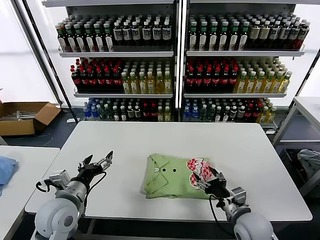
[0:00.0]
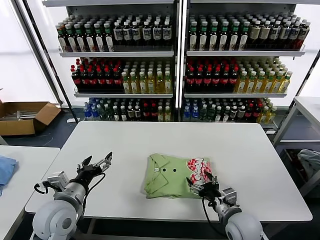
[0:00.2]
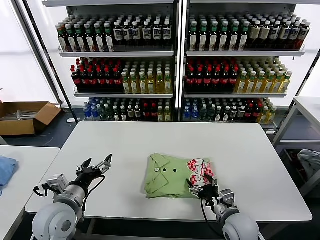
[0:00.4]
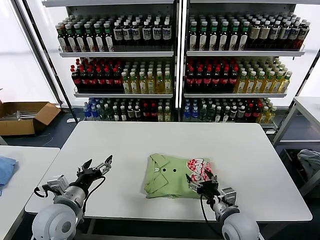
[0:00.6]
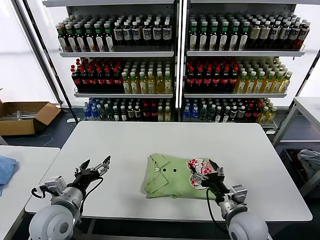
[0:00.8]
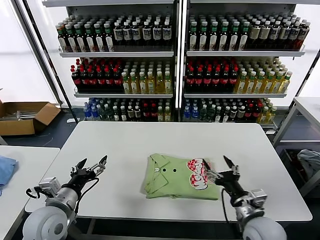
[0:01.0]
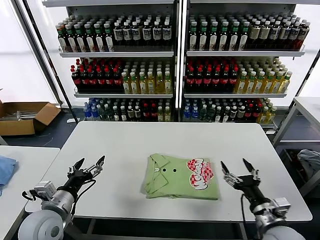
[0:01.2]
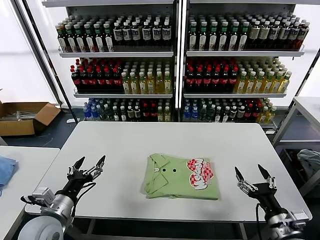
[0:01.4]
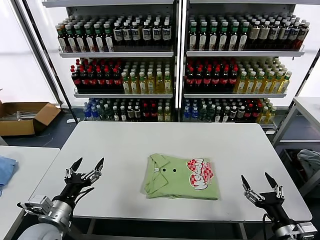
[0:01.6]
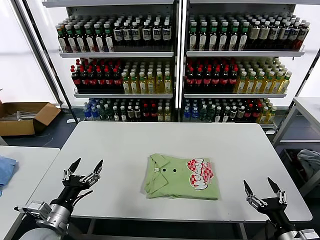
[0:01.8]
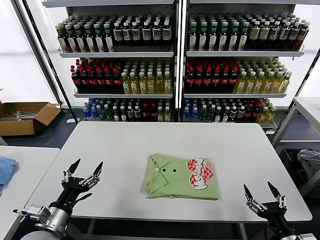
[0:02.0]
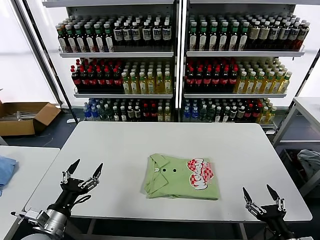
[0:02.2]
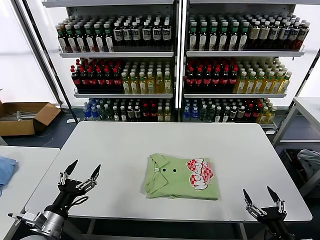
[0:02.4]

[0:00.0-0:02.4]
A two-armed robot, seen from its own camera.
Task of the whole recording: fold and organize the clothes.
0:00.0 to 0:01.2: The right gripper moves some 5 cm.
0:01.2 to 0:02.4: The right gripper is displaced backward and to the right by some 10 cm, while the left gripper is displaced backward by roughly 5 cm.

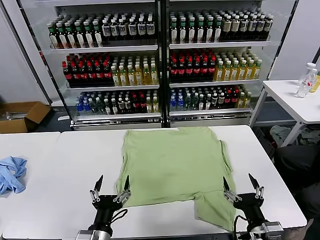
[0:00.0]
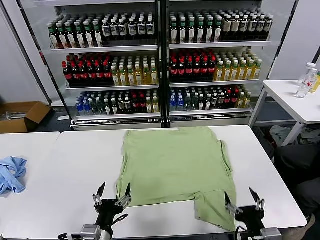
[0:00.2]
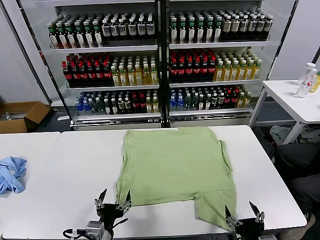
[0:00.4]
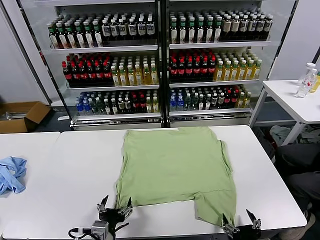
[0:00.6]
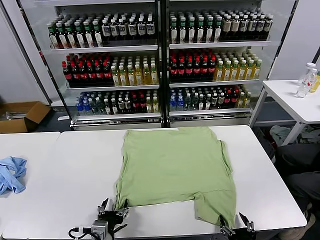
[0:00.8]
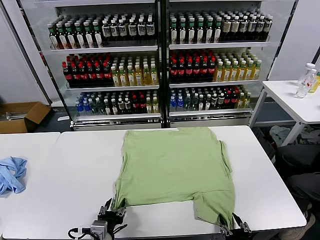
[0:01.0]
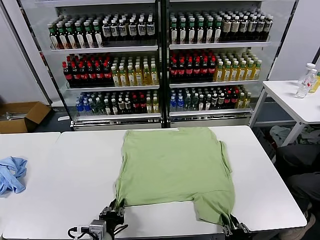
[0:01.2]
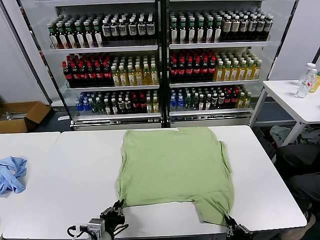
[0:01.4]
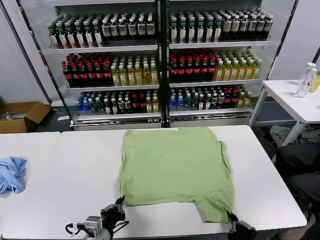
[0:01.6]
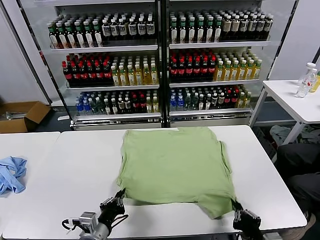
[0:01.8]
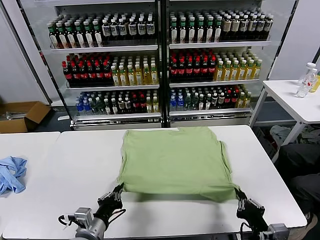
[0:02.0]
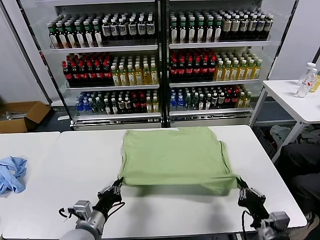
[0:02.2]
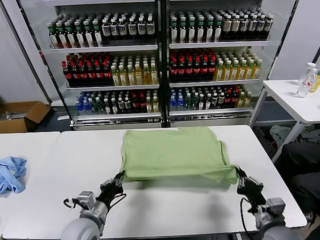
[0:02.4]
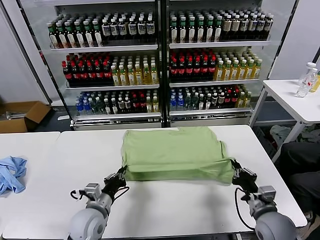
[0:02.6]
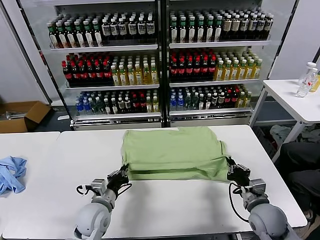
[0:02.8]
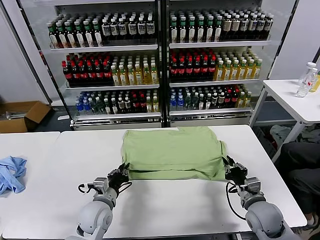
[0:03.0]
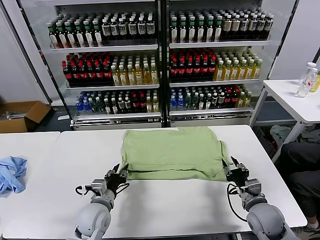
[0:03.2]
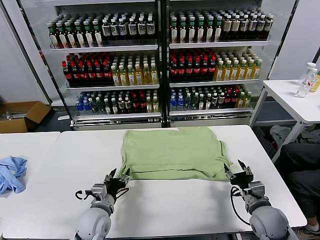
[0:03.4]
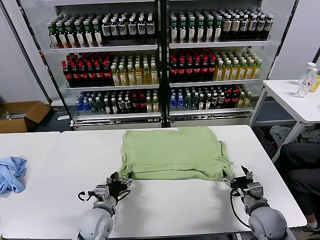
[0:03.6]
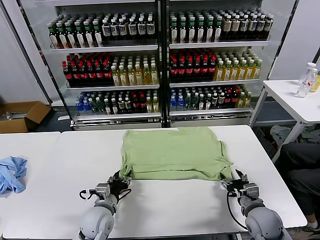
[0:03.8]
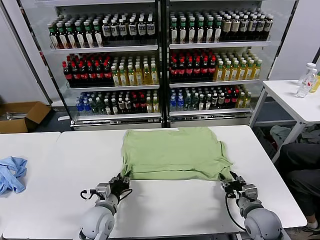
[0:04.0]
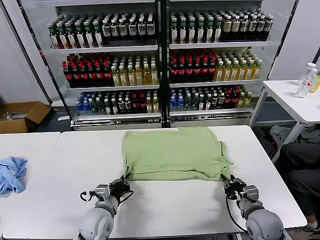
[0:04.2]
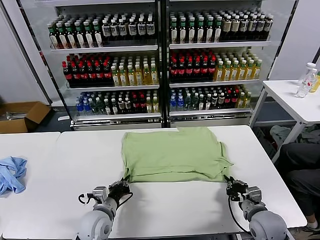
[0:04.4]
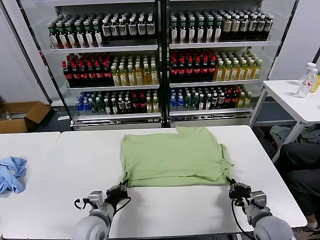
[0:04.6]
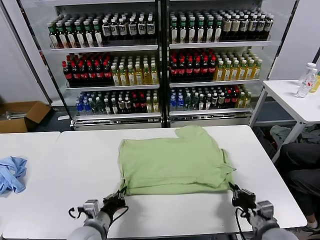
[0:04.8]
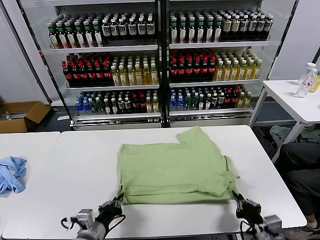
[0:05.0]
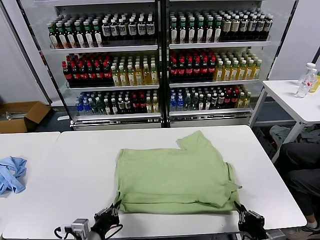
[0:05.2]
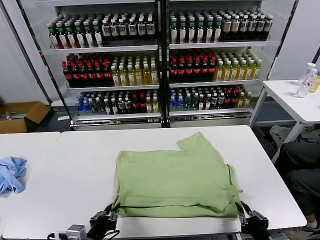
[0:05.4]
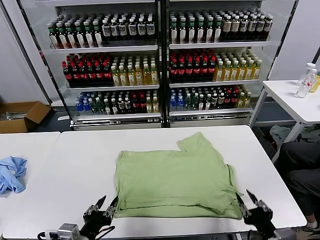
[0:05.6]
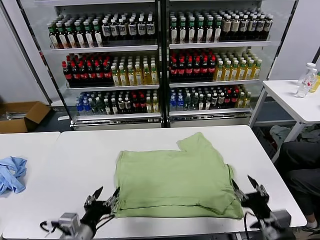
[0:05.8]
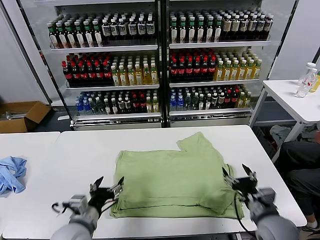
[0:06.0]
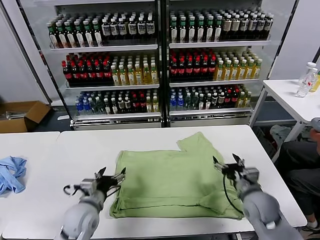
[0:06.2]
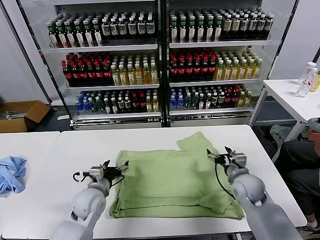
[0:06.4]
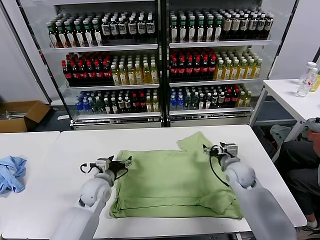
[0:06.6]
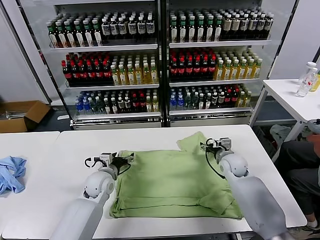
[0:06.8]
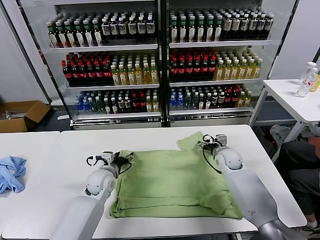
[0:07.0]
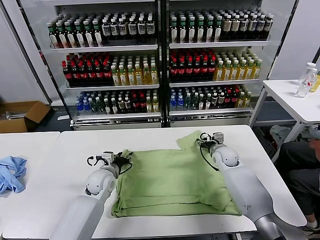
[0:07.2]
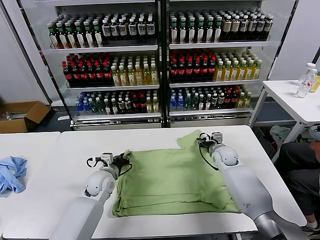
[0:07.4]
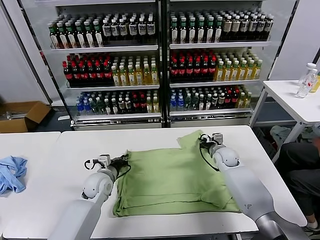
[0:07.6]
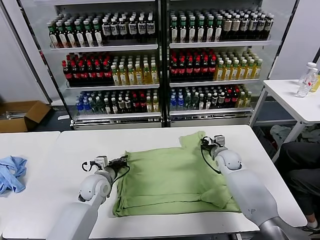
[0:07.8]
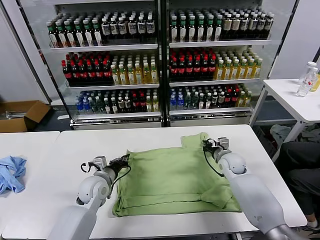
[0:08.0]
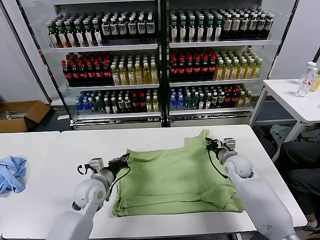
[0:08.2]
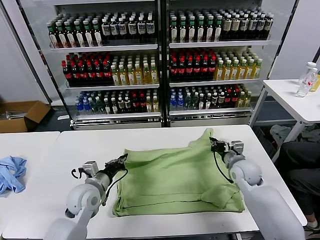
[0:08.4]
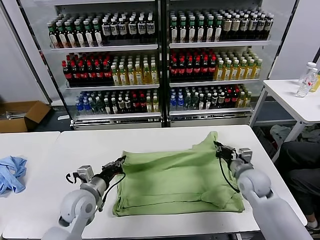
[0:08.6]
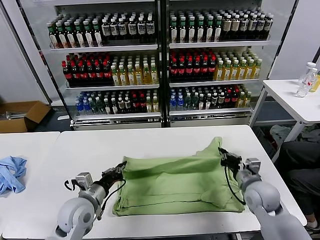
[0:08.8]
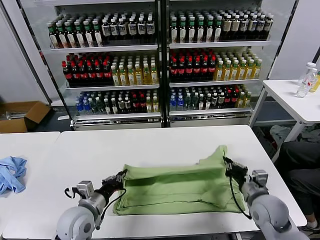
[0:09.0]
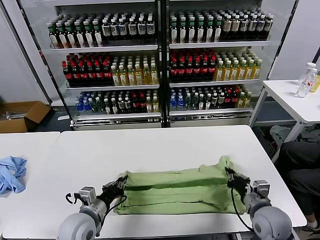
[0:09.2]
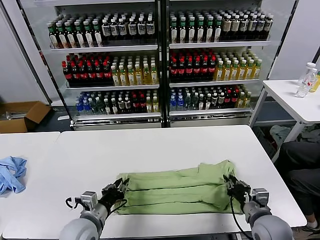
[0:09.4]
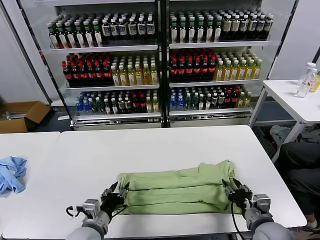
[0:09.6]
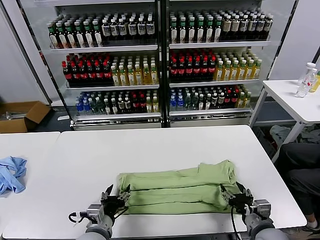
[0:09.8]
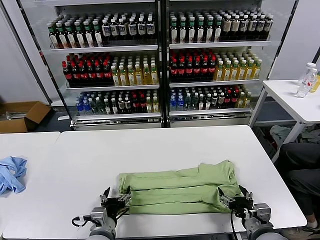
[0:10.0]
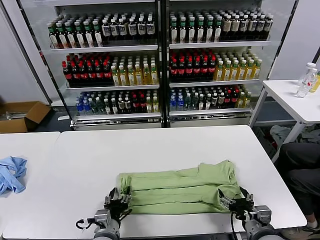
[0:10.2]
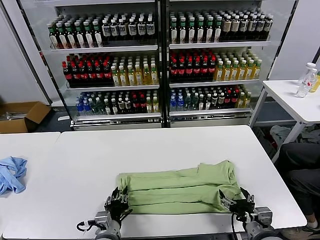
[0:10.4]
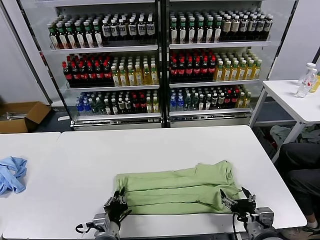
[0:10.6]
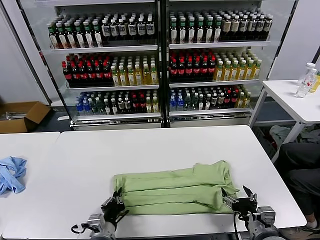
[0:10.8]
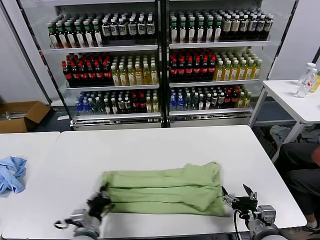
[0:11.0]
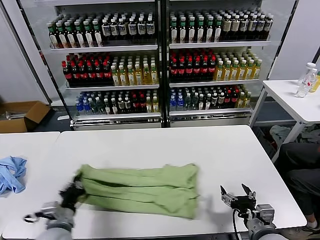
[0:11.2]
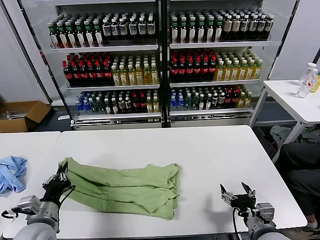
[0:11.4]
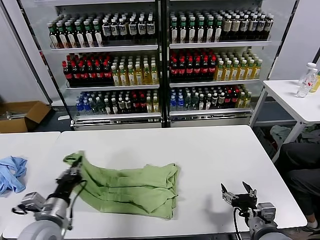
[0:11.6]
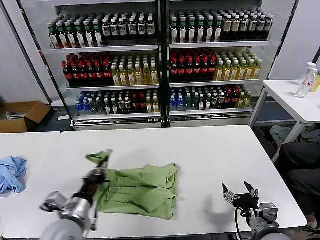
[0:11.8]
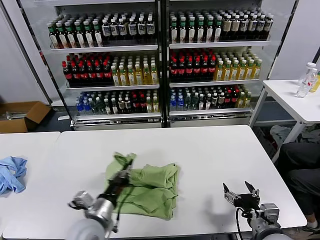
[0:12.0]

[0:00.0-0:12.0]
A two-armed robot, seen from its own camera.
Task of the whole recording: fold and organize the clothes.
Step, 0:00.0 to 0:01.4: use both grippers simultaneously to clamp the lower edge of the clothing fabric.
Step, 0:01.6 to 0:03.2: use both grippers to drag the lower edge of the fabric forward and fold it over the upper edge.
Step, 0:03.4 to 0:05.4: Drag the clothes downward with both gripper.
Step, 0:05.6 to 0:07.8: use both grippers simultaneously to clamp the upper edge of the clothing fabric.
Step, 0:08.0 to 0:09.4: use both grippers to drag the upper edge of the fabric backward and fold it over the lower edge.
Step, 0:09.8 to 0:10.6: use the left gripper to clamp the left edge of the fabric.
0:01.6 to 0:03.0: Both grippers travel together forward, approximately 15 cm. The right gripper opens up.
0:03.0 to 0:04.4: The right gripper closes; the left gripper opens, then closes once more.
0:04.4 to 0:06.0: The left gripper moves upward and backward, roughly 10 cm, and opens; the right gripper moves about 15 cm backward and comes back, and opens its fingers.
0:06.0 to 0:07.6: The grippers both shift forward by some 20 cm. The right gripper closes its fingers, while the left gripper closes up.
0:07.6 to 0:09.0: The left gripper shifts roughly 15 cm backward. The right gripper shifts roughly 25 cm backward.
0:09.0 to 0:10.4: The left gripper goes some 15 cm to the right, downward and backward, and opens; the right gripper travels backward by some 10 cm, and opens up.
0:10.4 to 0:12.0: The left gripper is displaced upward by some 10 cm, travels to the left and back again, some 15 cm each way, and closes up.

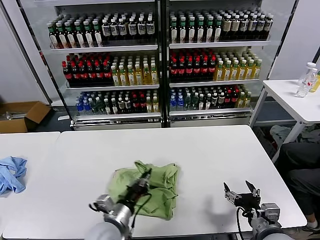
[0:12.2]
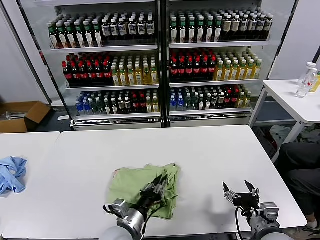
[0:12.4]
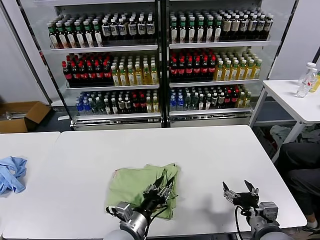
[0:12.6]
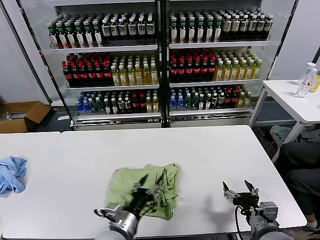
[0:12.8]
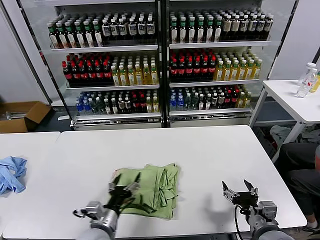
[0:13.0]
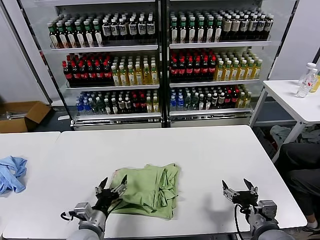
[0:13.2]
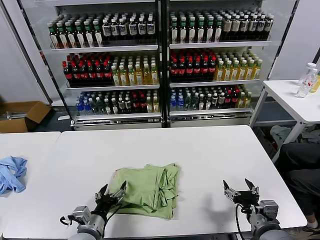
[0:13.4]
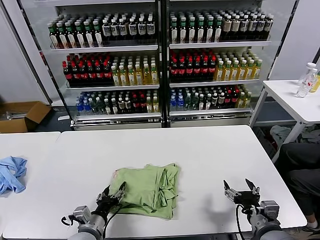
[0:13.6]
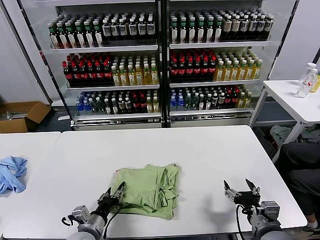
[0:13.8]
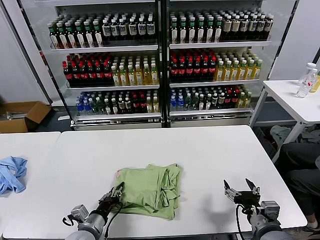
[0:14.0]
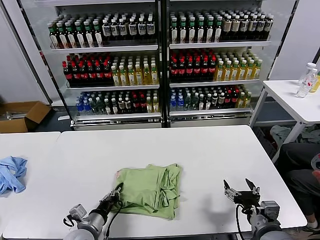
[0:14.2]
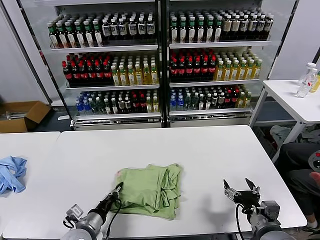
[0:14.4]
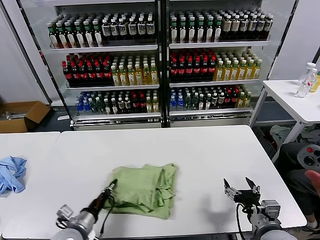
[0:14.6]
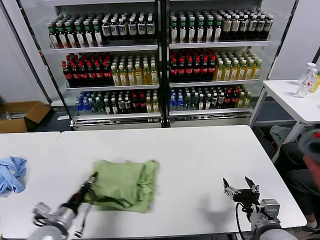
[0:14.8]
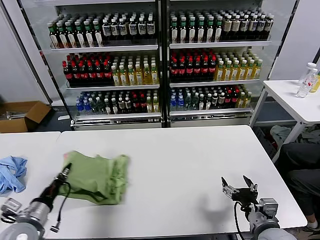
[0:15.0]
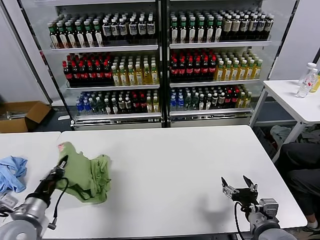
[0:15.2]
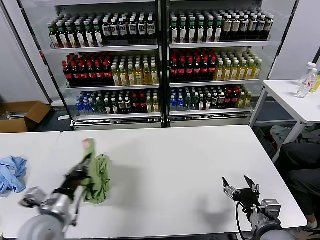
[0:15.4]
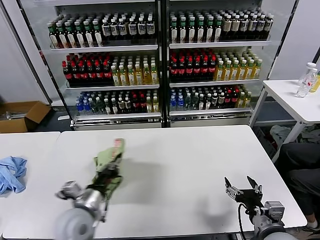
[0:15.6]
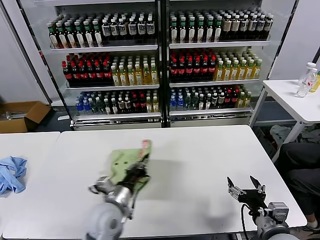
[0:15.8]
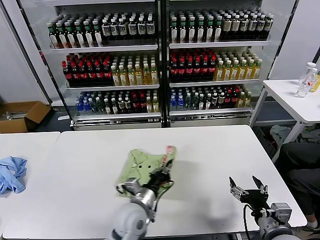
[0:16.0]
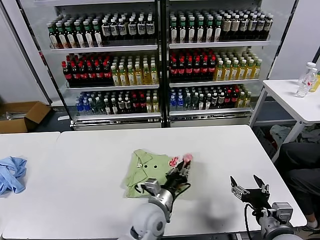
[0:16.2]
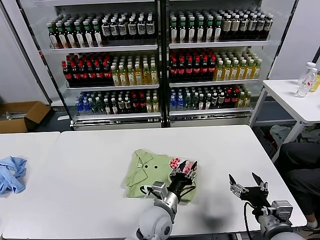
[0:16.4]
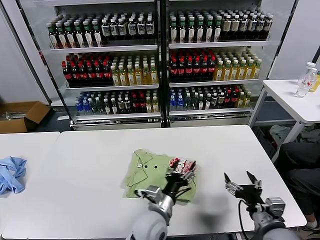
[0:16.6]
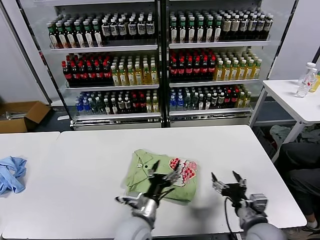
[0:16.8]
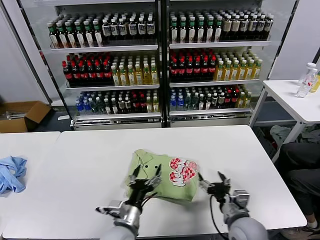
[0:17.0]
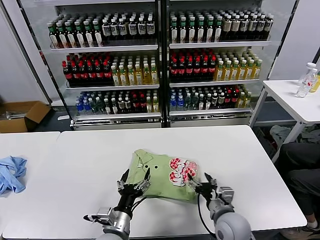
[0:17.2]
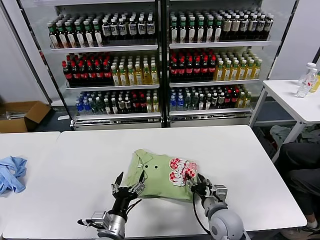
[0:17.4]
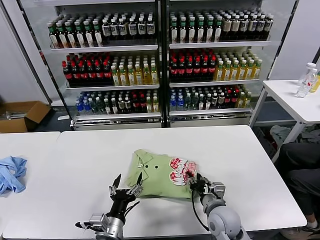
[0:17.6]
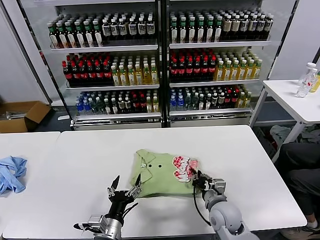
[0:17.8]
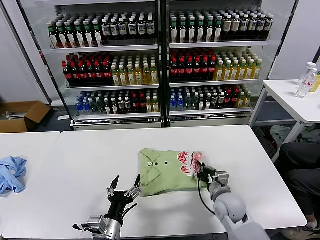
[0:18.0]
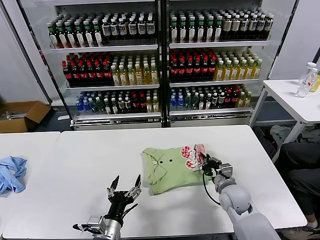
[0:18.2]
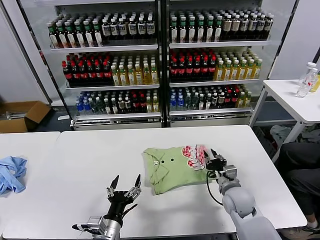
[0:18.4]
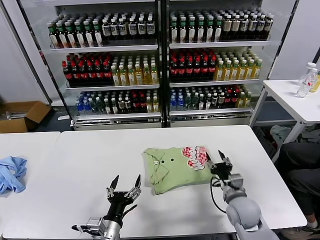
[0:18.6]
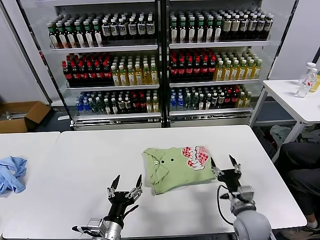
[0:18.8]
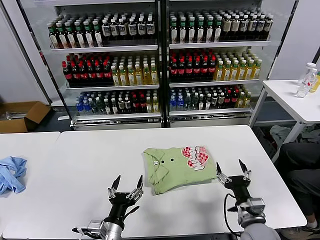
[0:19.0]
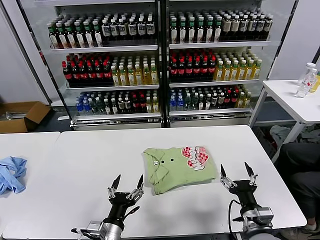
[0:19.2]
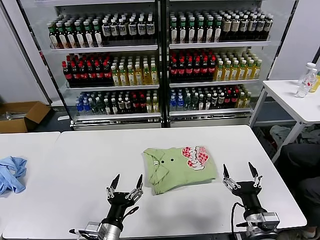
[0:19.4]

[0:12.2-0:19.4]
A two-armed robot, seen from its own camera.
Task of the whole recording: fold and organize the clothes.
Step, 0:12.6 to 0:16.2: Flip the folded clothes over with left gripper.
Step, 0:16.4 to 0:18.4: Drag the clothes to the center of the table.
0:12.2 to 0:13.6: The left gripper is displaced to the left and downward by about 10 cm, and opens up.
0:13.6 to 0:15.0: The left gripper shifts roughly 15 cm to the left and upward, and closes up.
0:15.0 to 0:16.6: The left gripper travels to the right by some 35 cm, and opens.
0:16.6 to 0:18.0: The right gripper goes approximately 20 cm forward, downward and to the left, and closes, while the left gripper shifts about 15 cm to the left and backward.
0:18.0 to 0:19.4: The right gripper is displaced backward by about 15 cm, and opens its fingers.
